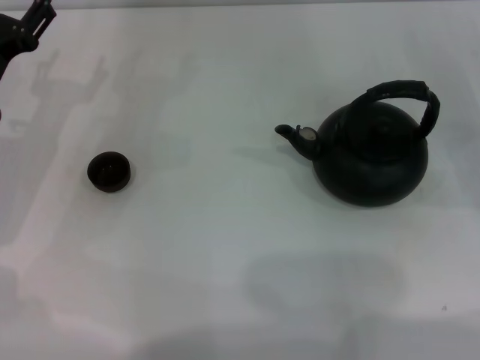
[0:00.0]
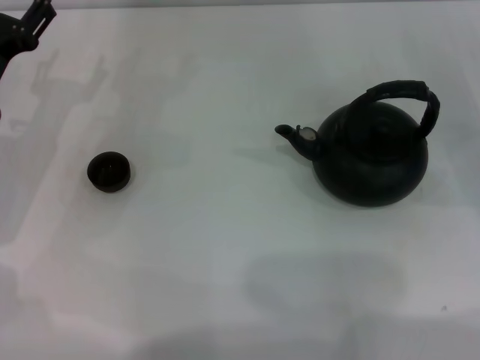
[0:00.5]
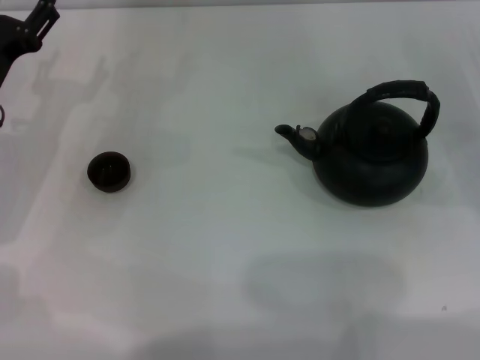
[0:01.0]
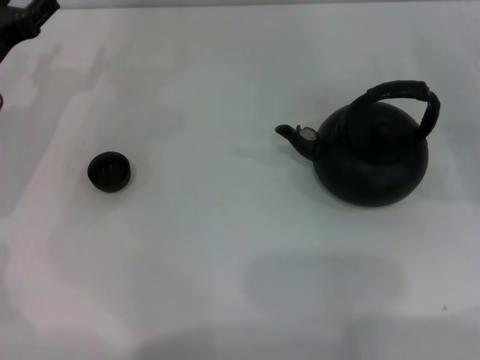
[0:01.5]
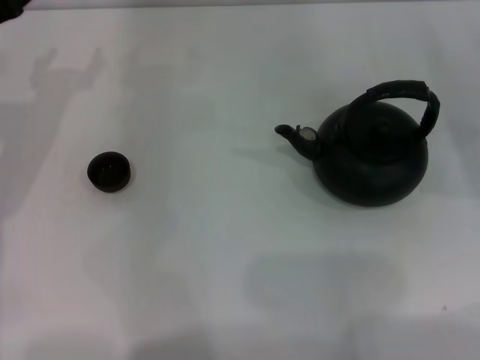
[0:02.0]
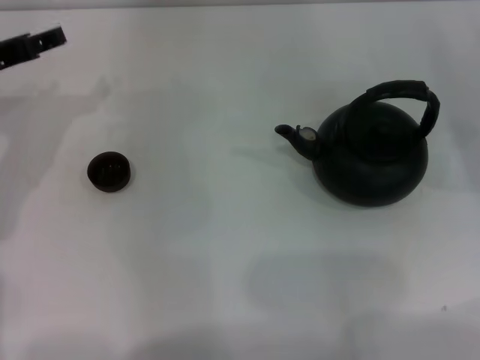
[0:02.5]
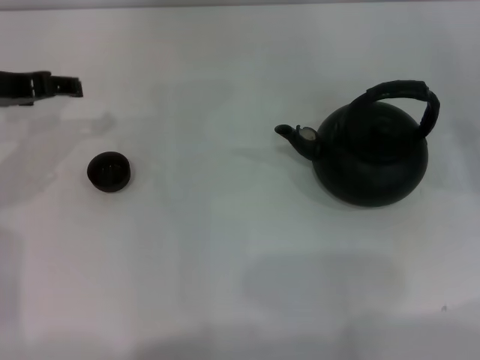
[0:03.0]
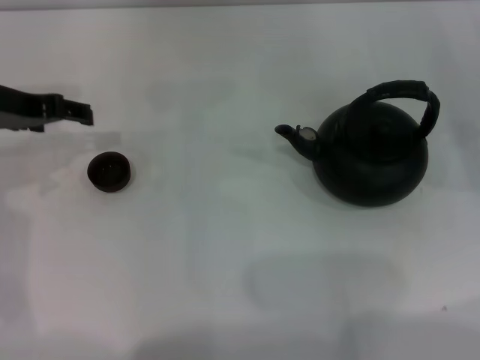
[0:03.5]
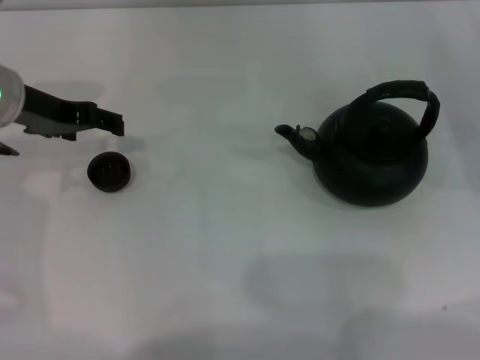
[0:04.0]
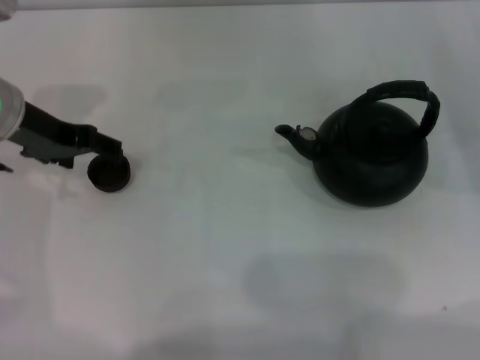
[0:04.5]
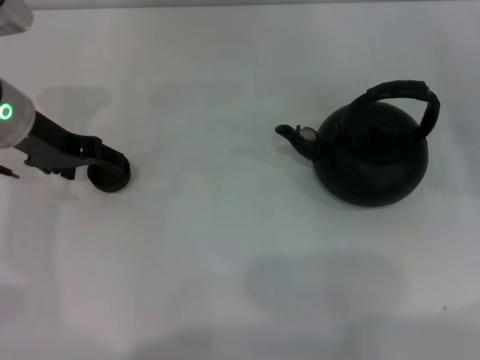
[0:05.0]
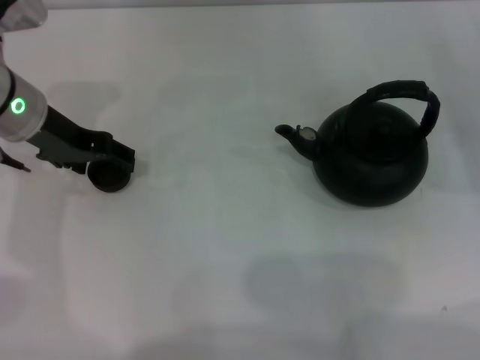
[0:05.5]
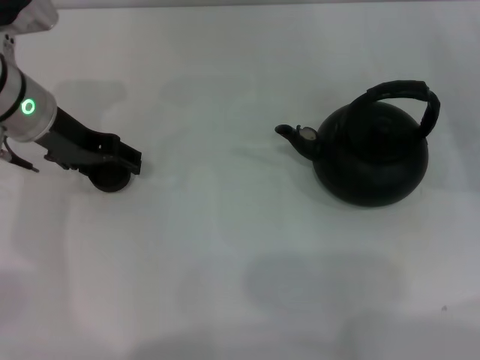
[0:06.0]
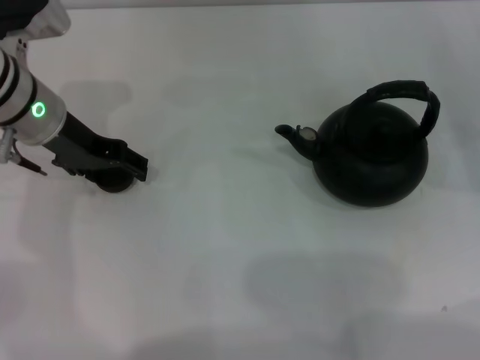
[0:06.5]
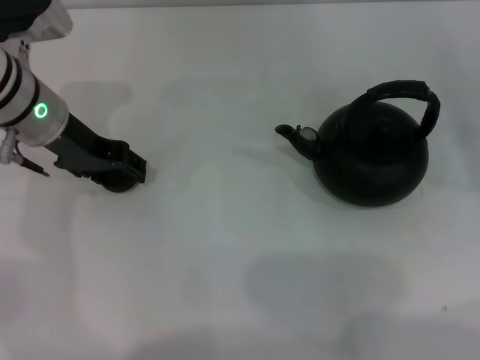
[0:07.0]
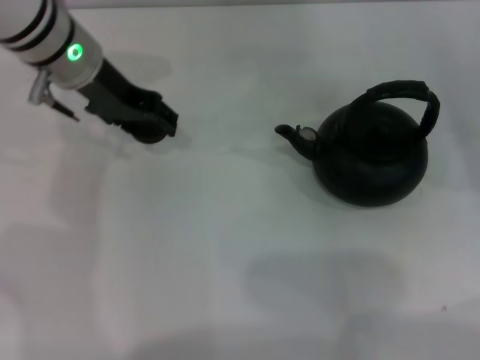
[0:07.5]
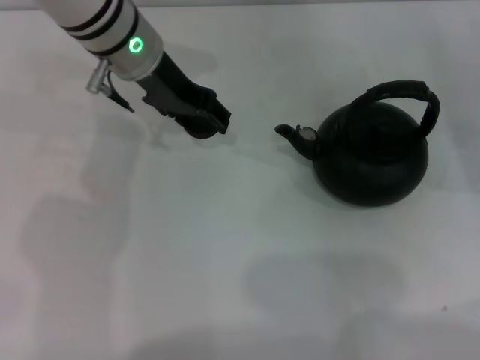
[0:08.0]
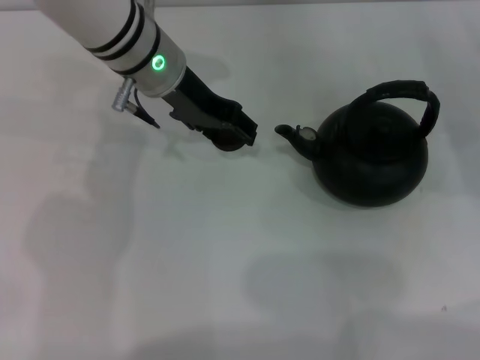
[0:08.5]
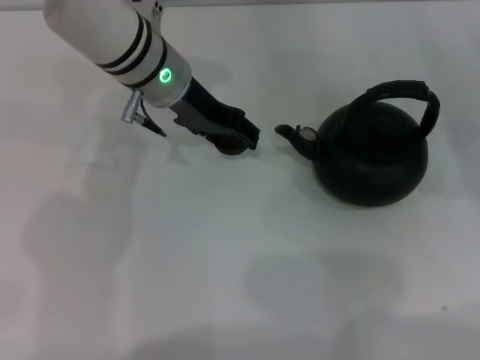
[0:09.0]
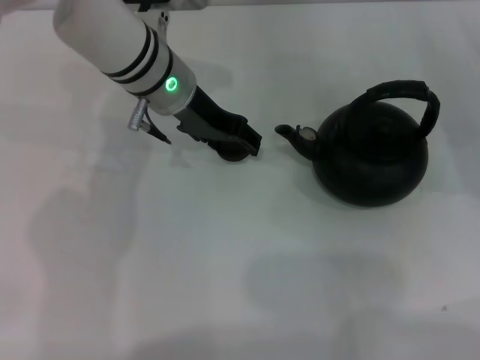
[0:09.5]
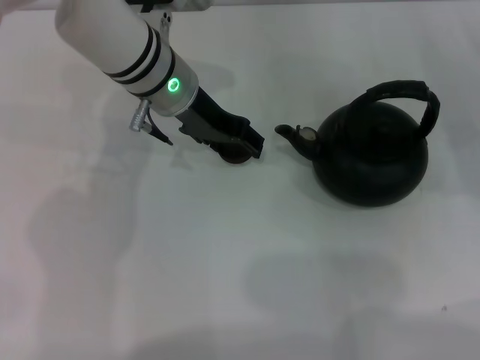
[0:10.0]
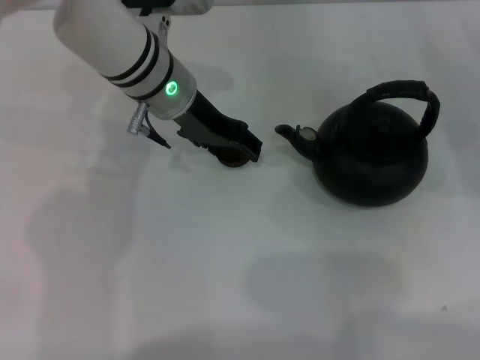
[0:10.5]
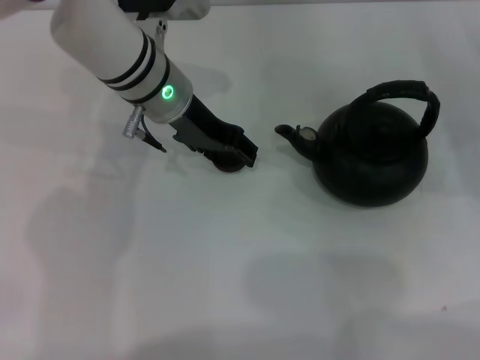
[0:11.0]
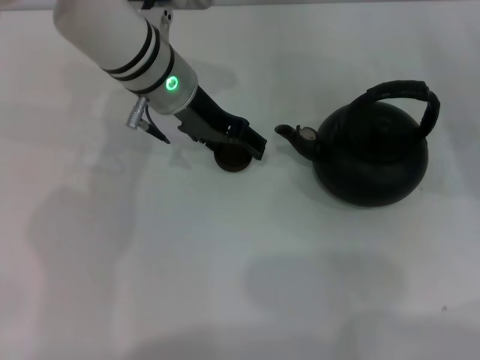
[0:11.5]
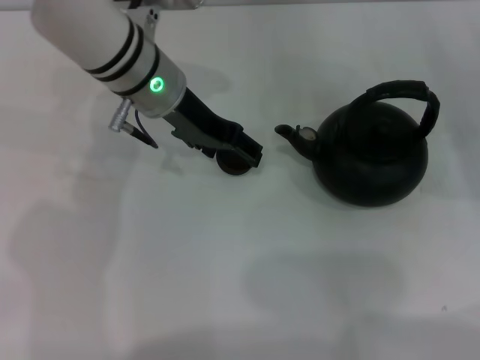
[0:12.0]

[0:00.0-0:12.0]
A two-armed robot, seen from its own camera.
Task of the whole recording: Grasp the handle of the teapot with one hand and pour tea into the teacup.
Step, 0:00.0 to 0:07.5: Pick up the teacup with the left gripper.
0:00.0 to 0:02.0: The left gripper goes roughly 5 cm upward.
0:02.0 to 0:04.0: The left gripper ends up roughly 5 cm from where it was.
0:04.0 to 0:06.0: There are only small adjustments of the grippers.
0:06.0 to 0:08.0: The left gripper travels to the right by approximately 10 cm, and closes.
0:08.0 to 0:10.0: The grippers move only a little.
0:10.0 to 0:12.0: The left gripper opens up.

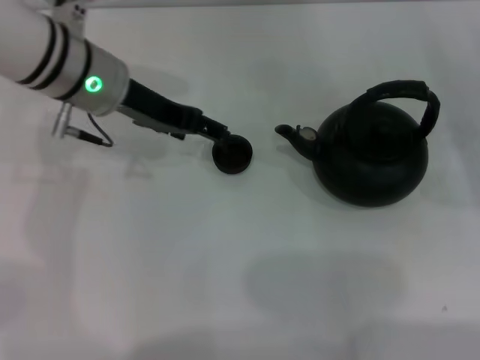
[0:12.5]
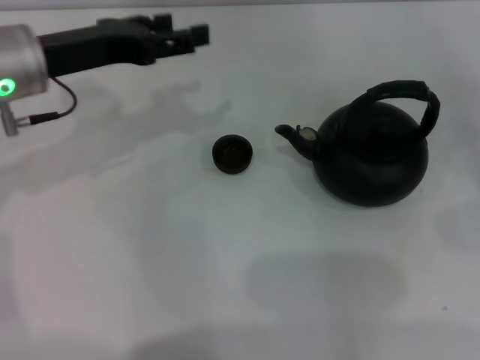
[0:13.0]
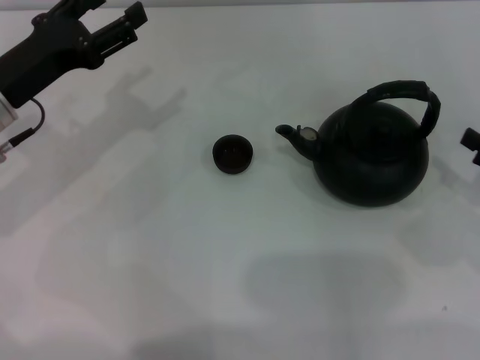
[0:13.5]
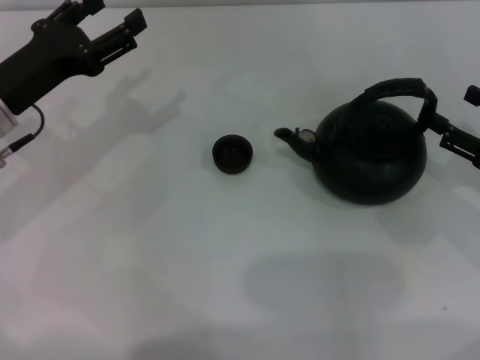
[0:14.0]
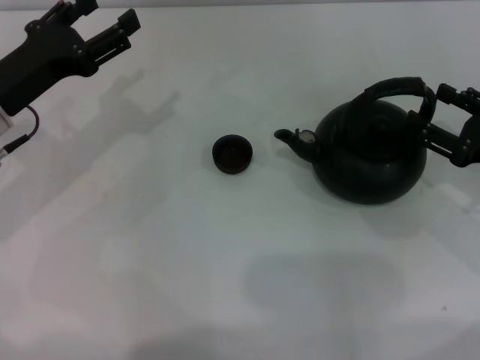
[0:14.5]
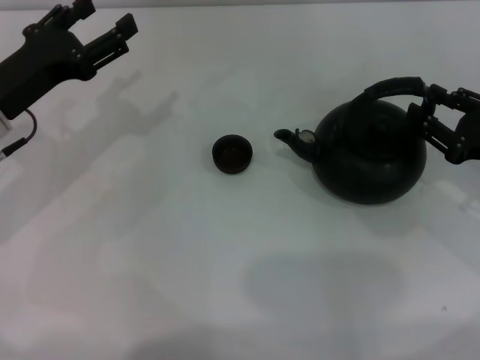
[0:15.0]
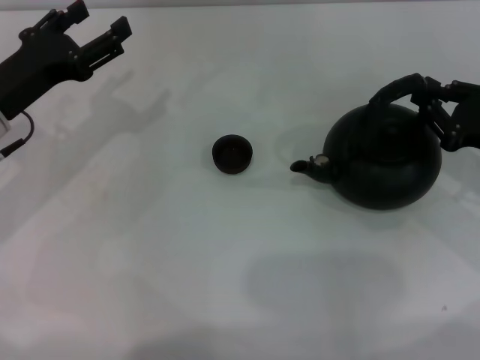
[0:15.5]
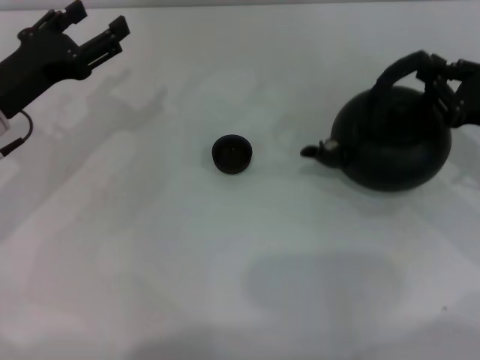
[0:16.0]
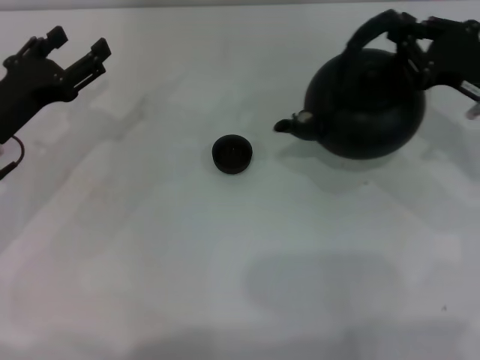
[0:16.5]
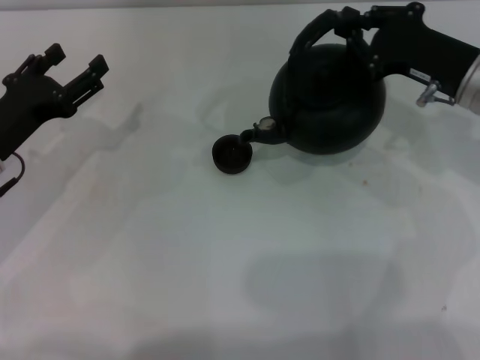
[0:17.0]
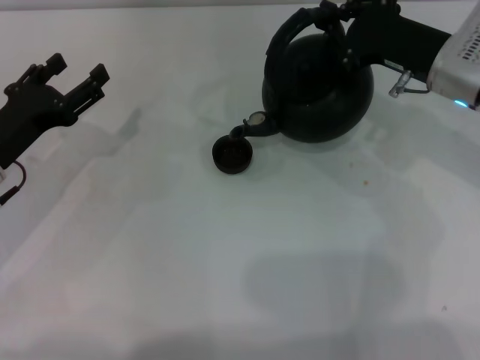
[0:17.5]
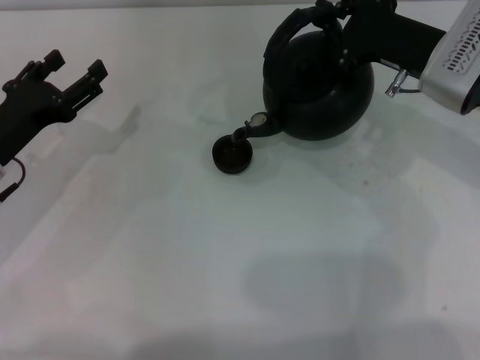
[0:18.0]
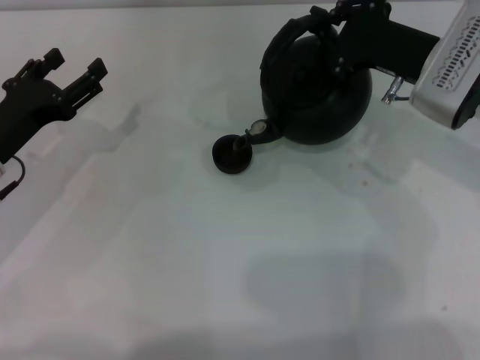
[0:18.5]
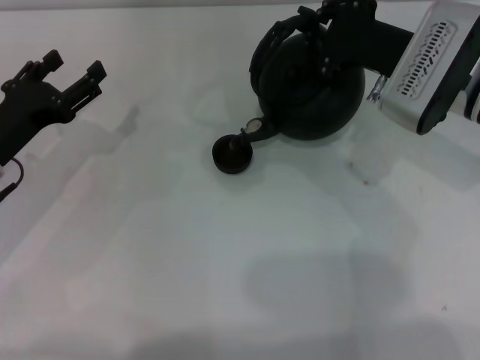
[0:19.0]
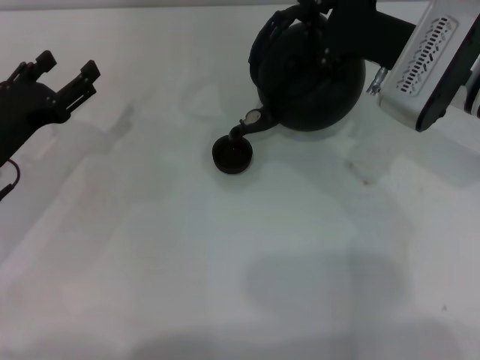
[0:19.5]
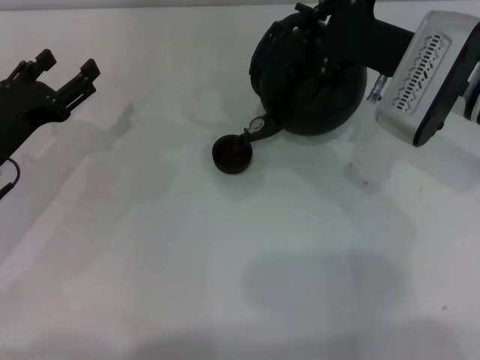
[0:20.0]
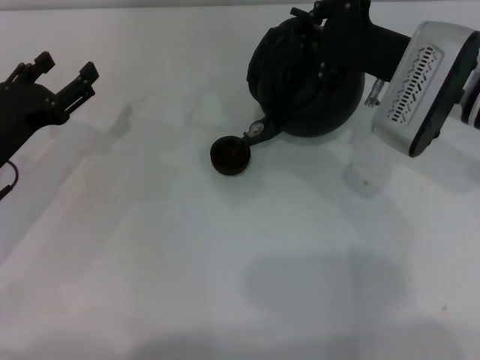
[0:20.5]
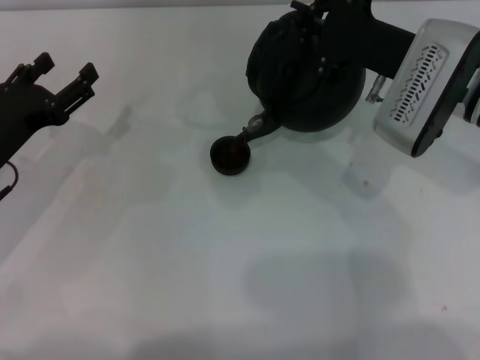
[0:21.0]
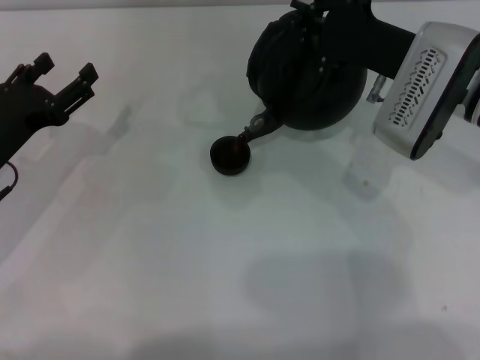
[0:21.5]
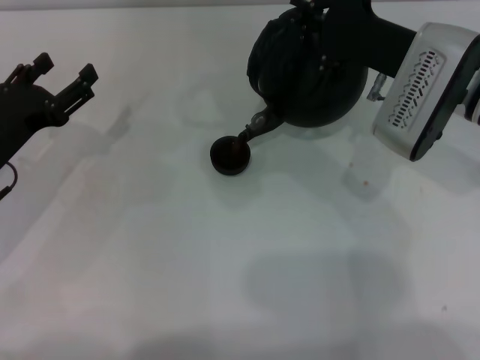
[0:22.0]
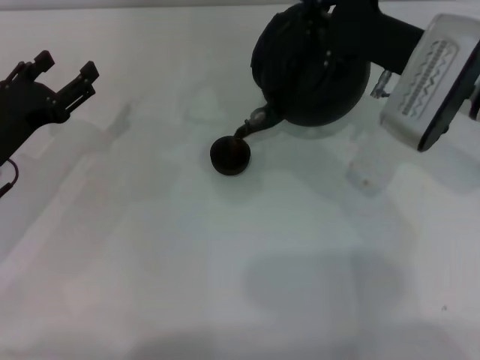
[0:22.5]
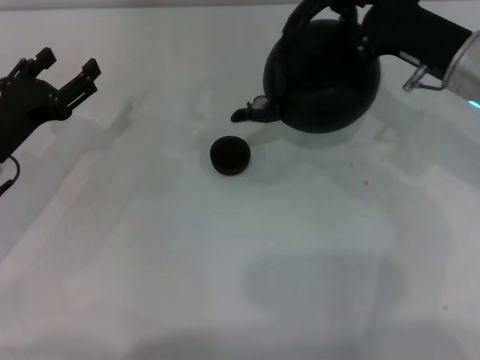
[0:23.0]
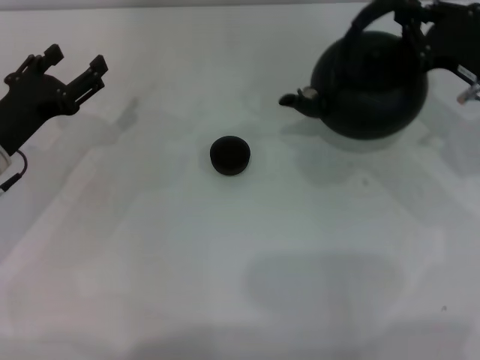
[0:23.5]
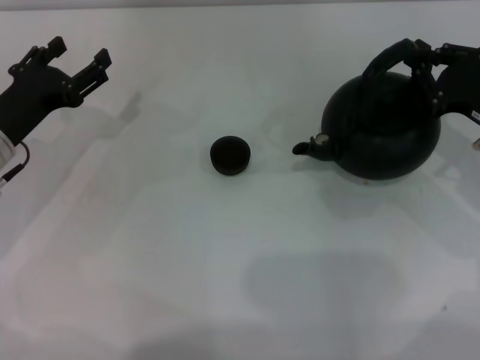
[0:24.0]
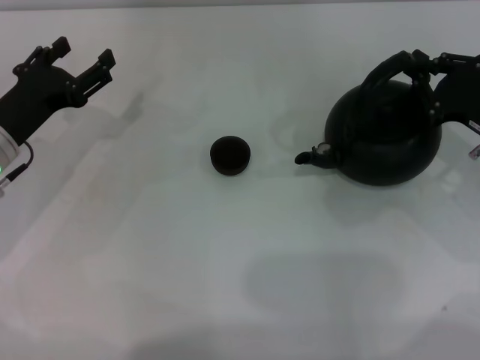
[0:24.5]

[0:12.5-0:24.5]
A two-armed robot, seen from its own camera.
Task of the whole recording: Grasp the handle of the teapot with one hand and pour tea into the teacup.
Step, 0:12.5 to 0:16.5: Pick up the teapot with the right gripper.
Step, 0:17.5 to 0:22.5: Pour tea into the teacup with the right gripper.
0:12.5 to 0:14.5: The right gripper moves to the left, approximately 5 cm. Meanwhile the left gripper shifts about 10 cm to the left and backward.
0:14.5 to 0:16.5: The right gripper heads forward, covering approximately 5 cm, and closes.
0:16.5 to 0:18.5: The right gripper travels to the left by approximately 10 cm.
0:18.5 to 0:20.5: The grippers stay close to where they were, moving slightly.
0:20.5 to 0:22.5: Both grippers stay about where they are.
0:22.5 to 0:24.5: The right gripper is displaced to the right, downward and backward by some 15 cm.

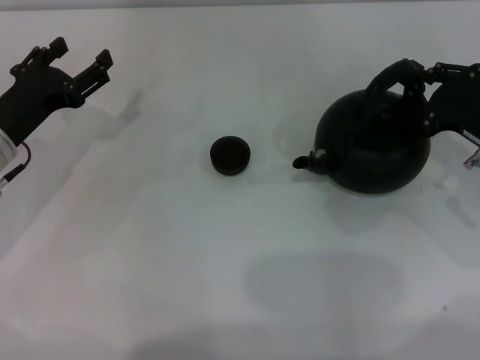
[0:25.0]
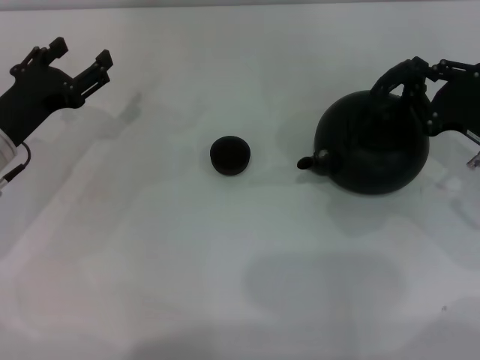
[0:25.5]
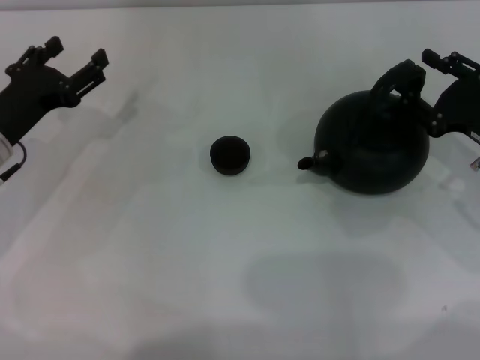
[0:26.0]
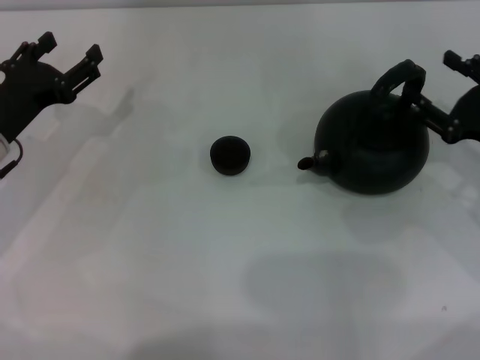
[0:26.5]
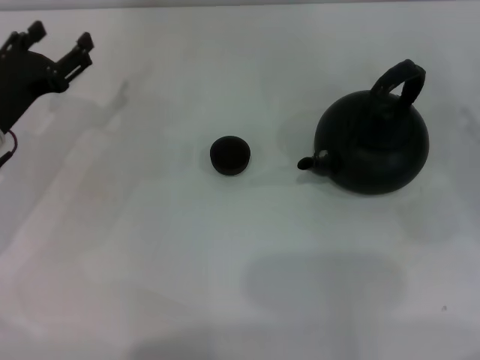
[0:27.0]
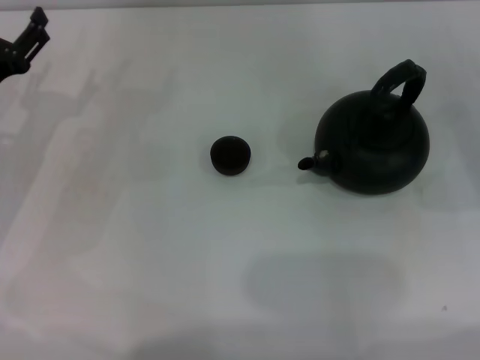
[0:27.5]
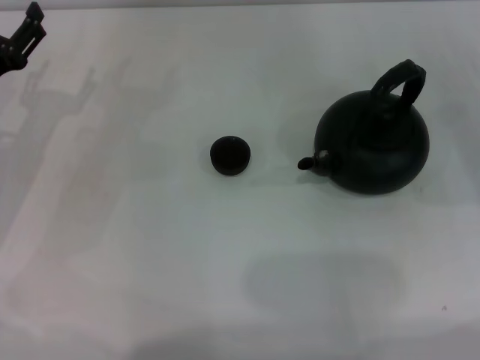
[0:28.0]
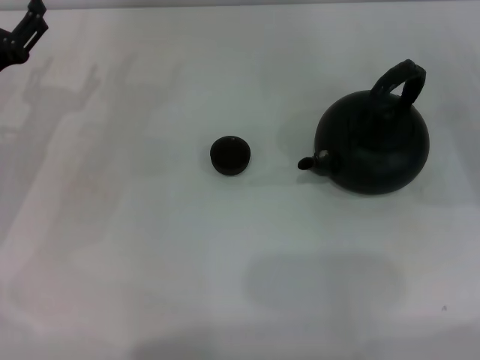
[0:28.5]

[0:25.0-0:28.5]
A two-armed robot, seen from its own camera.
Task of the whole recording: Grasp the handle of the teapot with one hand and pour tea into the teacup.
0:25.0 to 0:27.0: The right gripper goes about 5 cm to the right, and opens up.
0:27.0 to 0:28.5: The grippers make only small movements.
